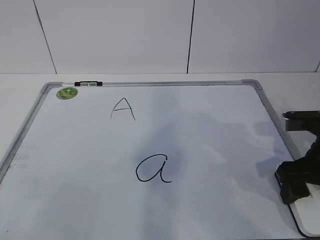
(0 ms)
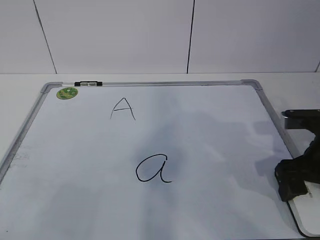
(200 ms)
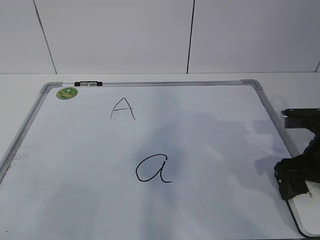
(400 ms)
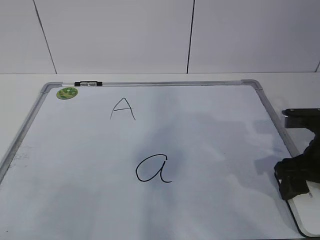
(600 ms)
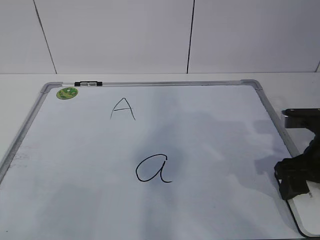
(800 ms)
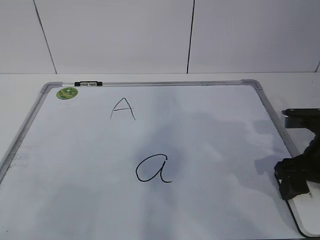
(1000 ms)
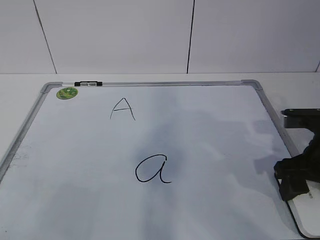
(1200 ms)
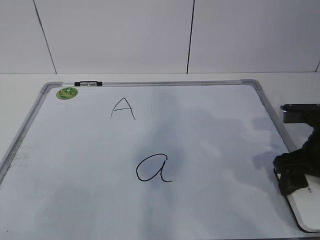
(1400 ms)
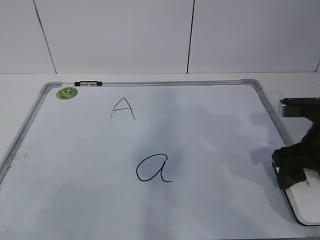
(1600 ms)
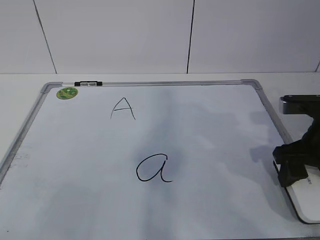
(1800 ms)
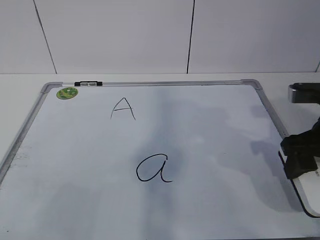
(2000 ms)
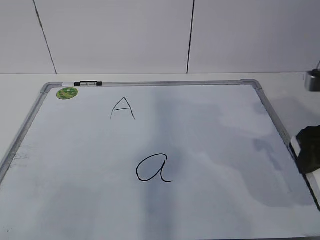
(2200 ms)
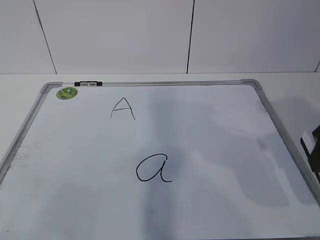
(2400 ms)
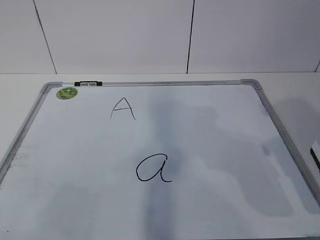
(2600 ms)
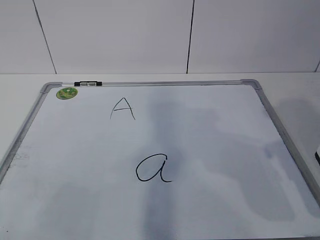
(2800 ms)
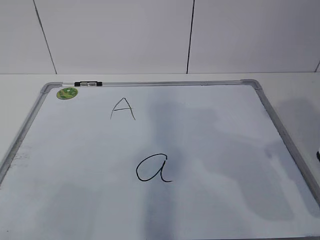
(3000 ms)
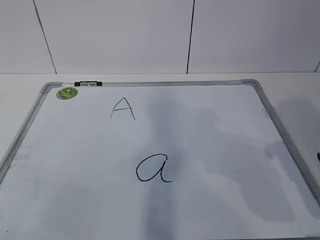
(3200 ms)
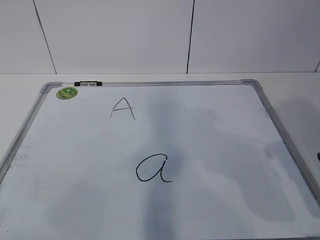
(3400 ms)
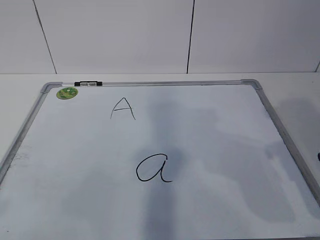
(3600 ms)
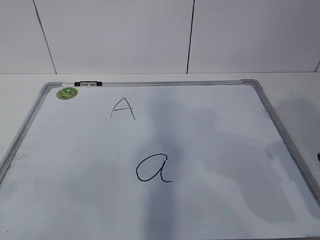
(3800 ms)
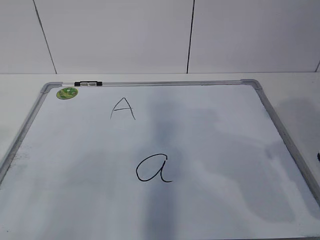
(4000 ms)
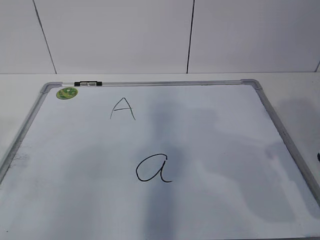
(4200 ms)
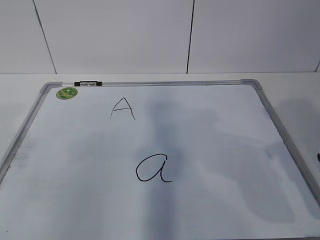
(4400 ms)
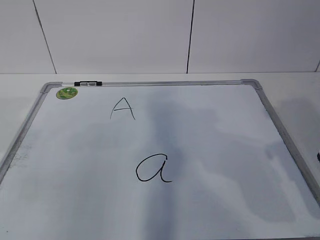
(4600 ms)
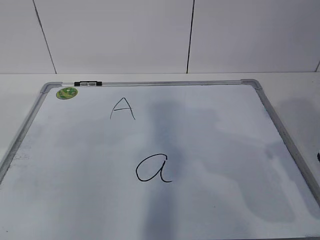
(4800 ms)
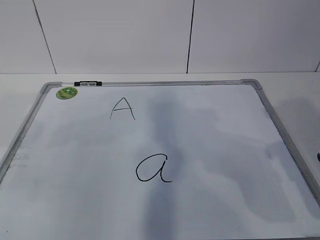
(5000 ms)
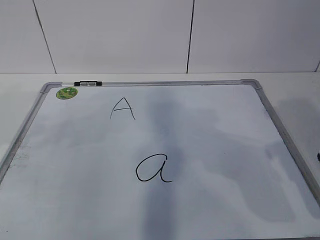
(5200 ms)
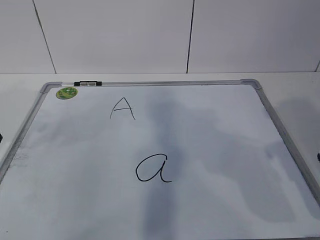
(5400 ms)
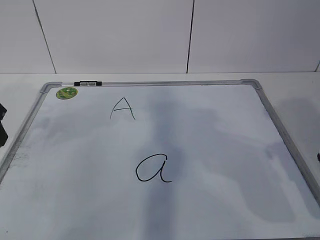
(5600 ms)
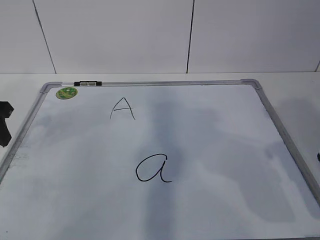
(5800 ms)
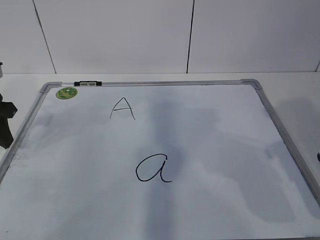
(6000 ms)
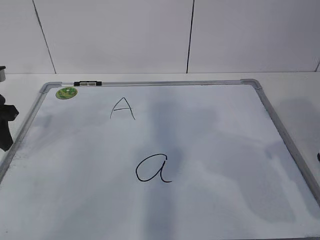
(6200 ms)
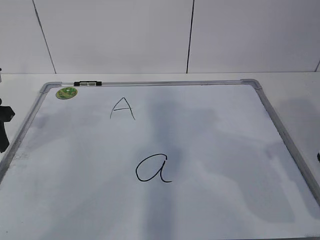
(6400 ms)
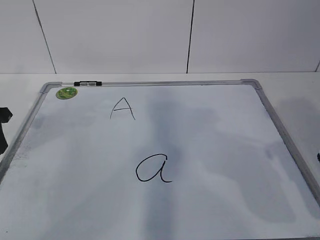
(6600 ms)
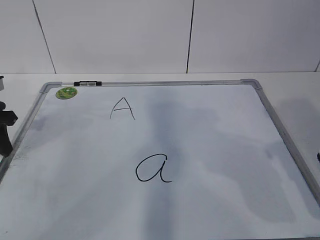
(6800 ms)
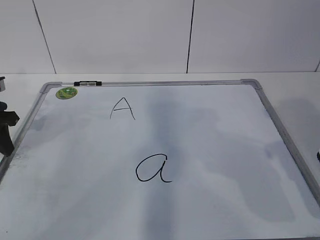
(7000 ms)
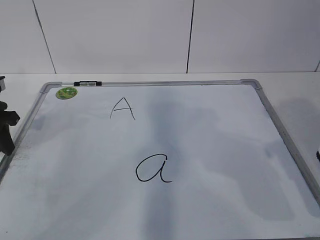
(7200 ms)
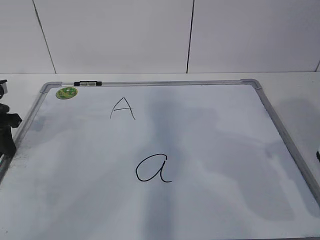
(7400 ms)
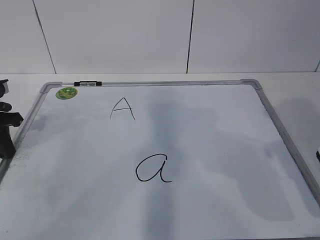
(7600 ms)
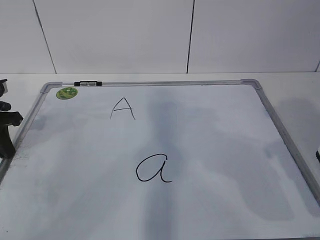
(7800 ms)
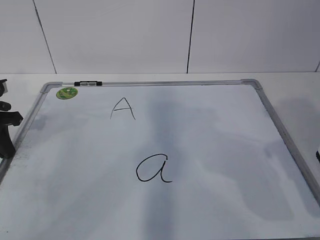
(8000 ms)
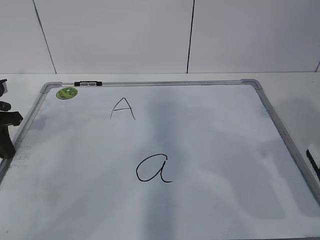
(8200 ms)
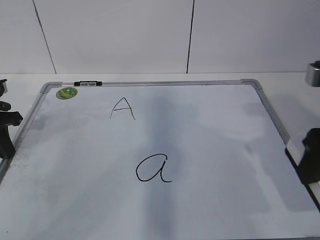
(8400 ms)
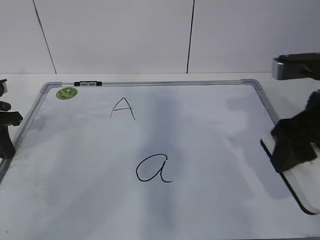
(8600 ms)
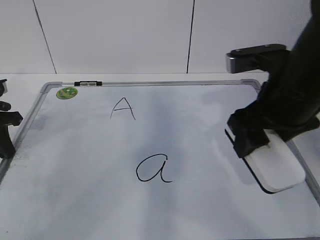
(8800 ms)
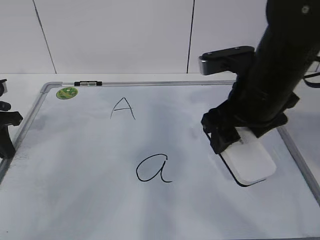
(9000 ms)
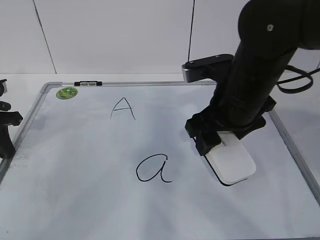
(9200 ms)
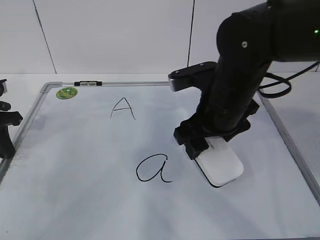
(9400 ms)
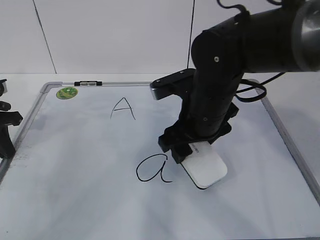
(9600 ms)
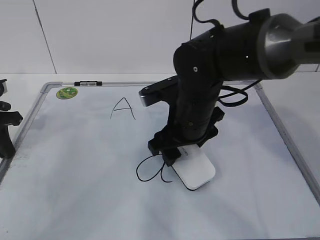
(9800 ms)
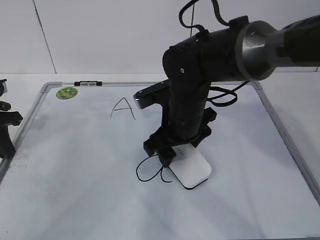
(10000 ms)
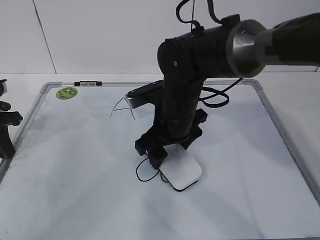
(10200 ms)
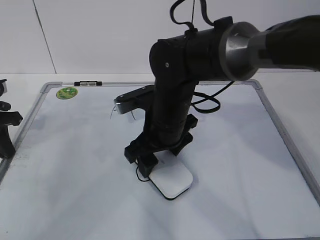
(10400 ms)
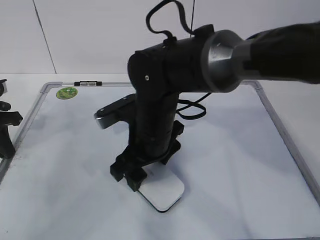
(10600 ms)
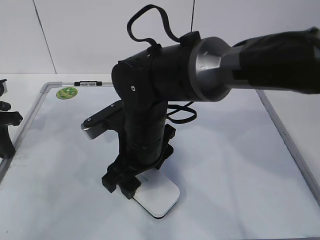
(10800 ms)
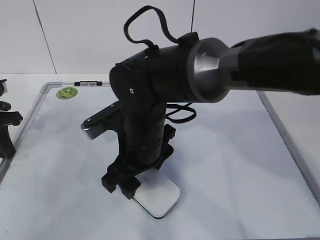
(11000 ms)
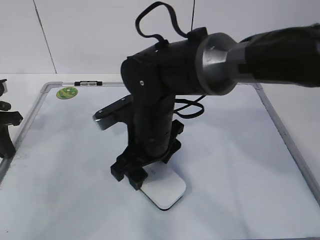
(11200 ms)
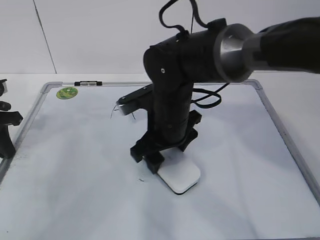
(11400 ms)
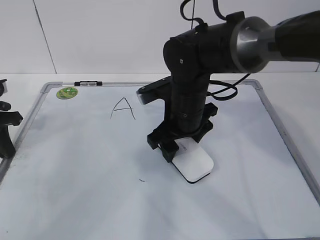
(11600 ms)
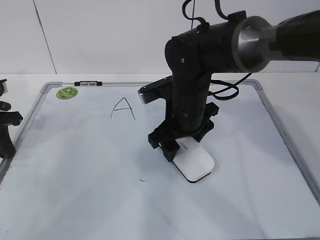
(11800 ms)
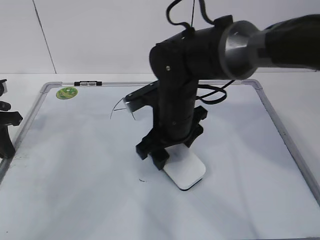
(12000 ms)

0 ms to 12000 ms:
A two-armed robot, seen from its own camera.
Task of the whole recording: pick up the eraser on the blackboard and erase the letter "a".
Step, 0 ms to 5000 ms: Hold the drawing board steady with your left hand.
Step, 5200 ms to 9800 ms: Erase the letter a with your right hand.
0 ms to 1600 ms: The right gripper closes up.
1600 ms to 3000 ms: The right gripper is displaced upward and backward by roughly 10 cm.
4400 ms to 6000 ms: The left gripper heads forward and downward, covering about 20 cm, and closes up.
6000 ms to 7600 ms: The left gripper changes place by about 5 cm, and closes its fingers.
7600 ms to 9000 ms: The right gripper moves to the left and forward, approximately 15 cm.
9000 ms to 10400 ms: The right gripper heads to the left and downward, covering roughly 15 cm.
10400 ms to 12000 ms: The grippers make only small movements.

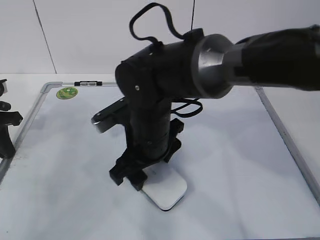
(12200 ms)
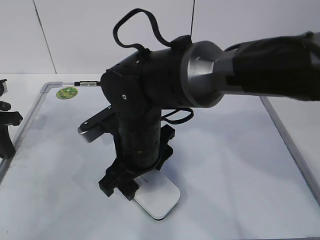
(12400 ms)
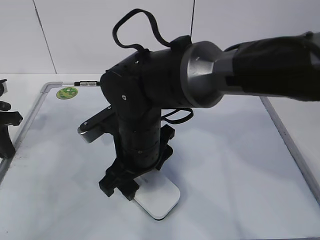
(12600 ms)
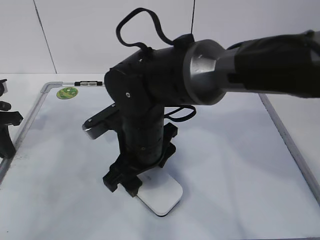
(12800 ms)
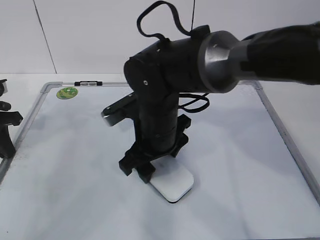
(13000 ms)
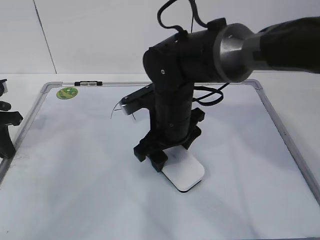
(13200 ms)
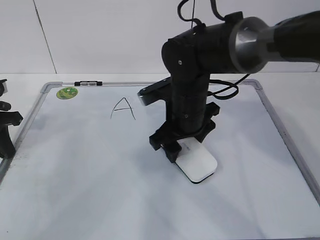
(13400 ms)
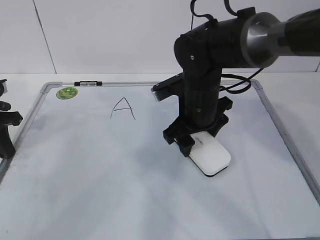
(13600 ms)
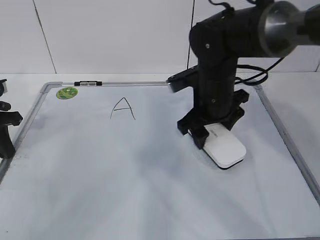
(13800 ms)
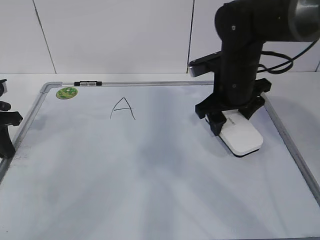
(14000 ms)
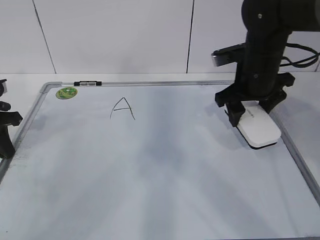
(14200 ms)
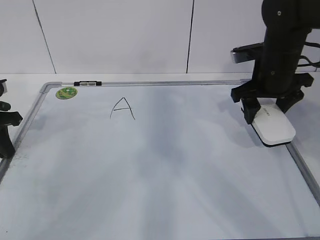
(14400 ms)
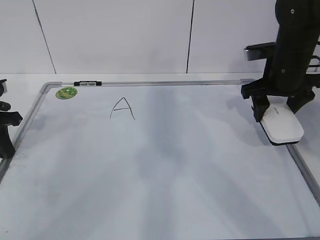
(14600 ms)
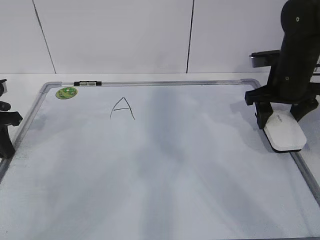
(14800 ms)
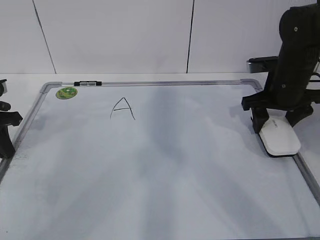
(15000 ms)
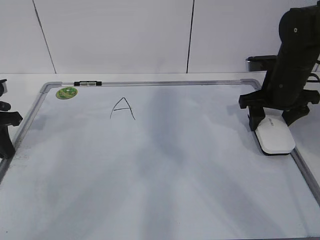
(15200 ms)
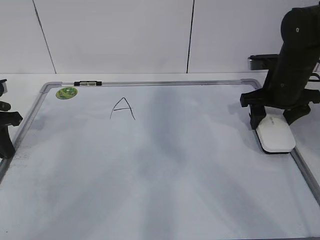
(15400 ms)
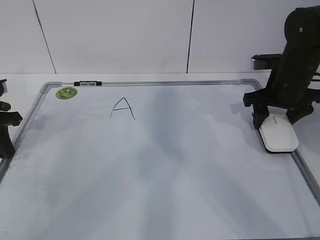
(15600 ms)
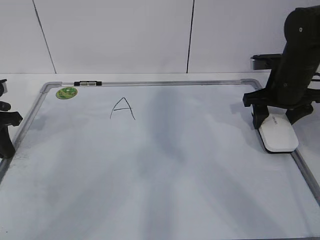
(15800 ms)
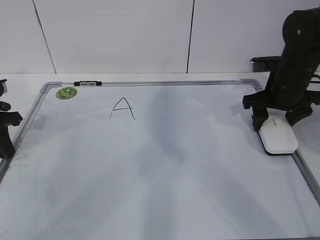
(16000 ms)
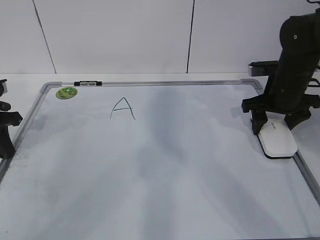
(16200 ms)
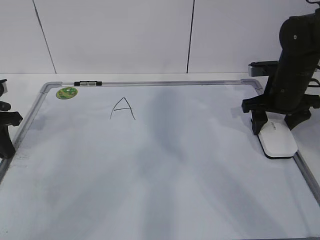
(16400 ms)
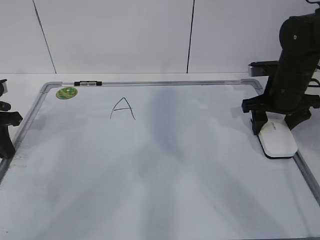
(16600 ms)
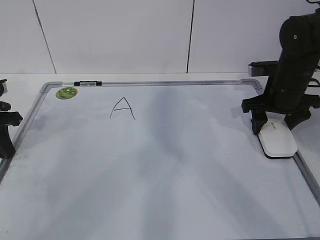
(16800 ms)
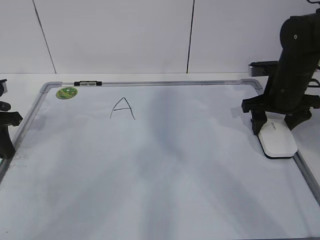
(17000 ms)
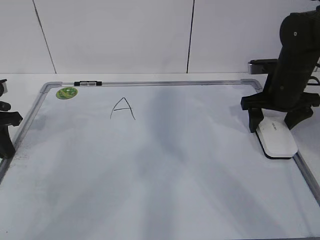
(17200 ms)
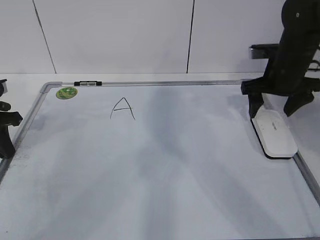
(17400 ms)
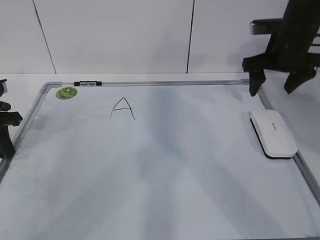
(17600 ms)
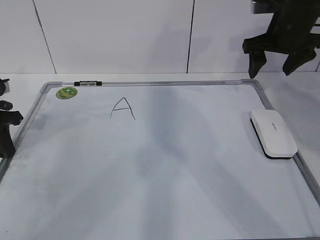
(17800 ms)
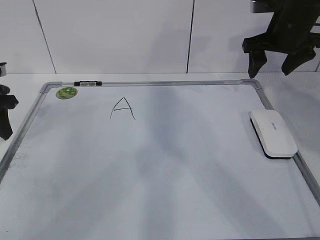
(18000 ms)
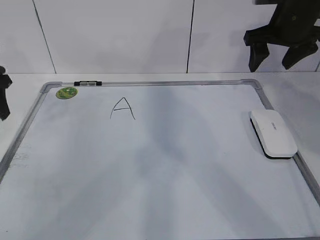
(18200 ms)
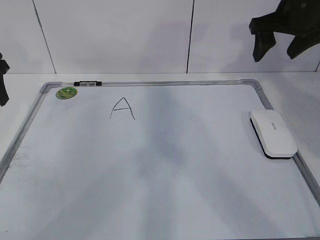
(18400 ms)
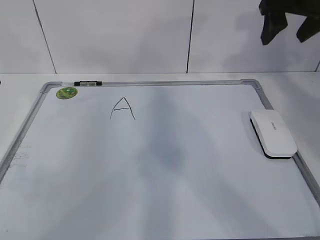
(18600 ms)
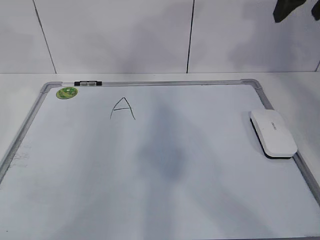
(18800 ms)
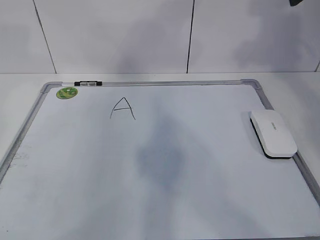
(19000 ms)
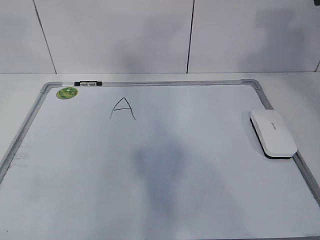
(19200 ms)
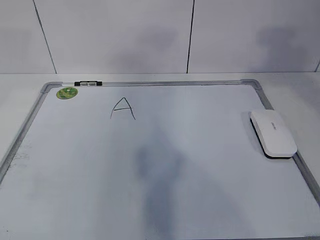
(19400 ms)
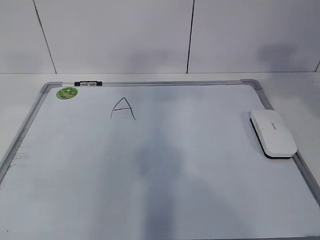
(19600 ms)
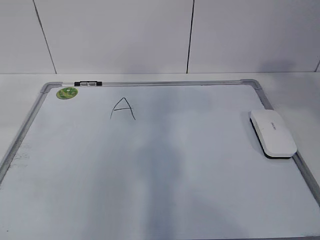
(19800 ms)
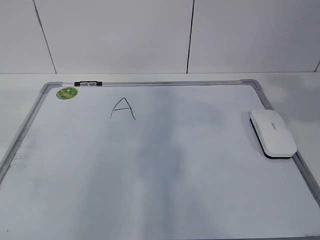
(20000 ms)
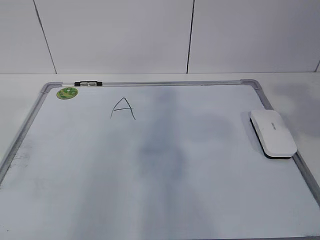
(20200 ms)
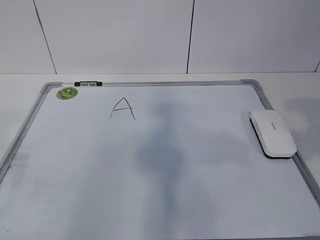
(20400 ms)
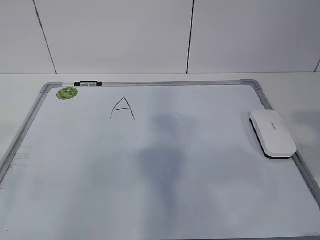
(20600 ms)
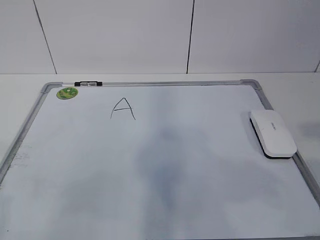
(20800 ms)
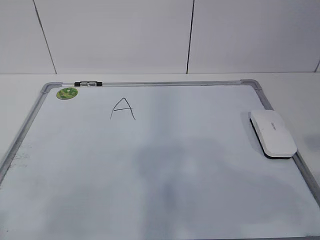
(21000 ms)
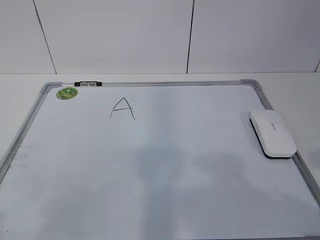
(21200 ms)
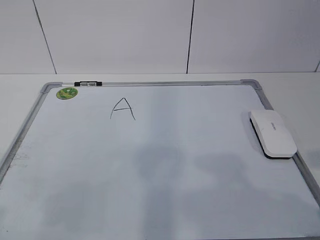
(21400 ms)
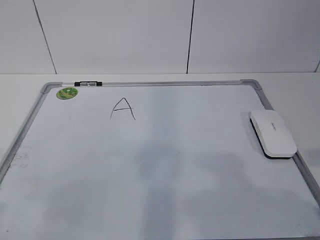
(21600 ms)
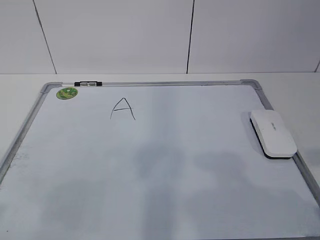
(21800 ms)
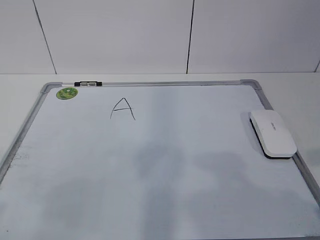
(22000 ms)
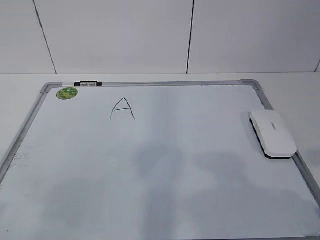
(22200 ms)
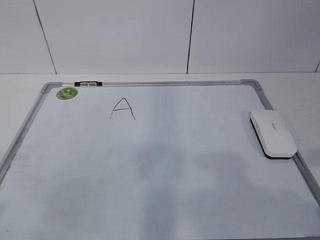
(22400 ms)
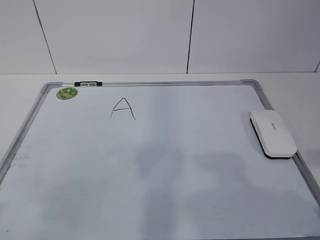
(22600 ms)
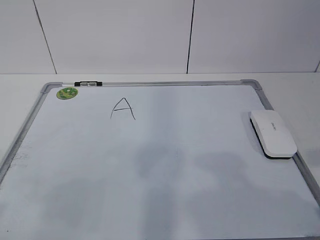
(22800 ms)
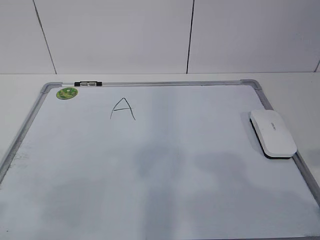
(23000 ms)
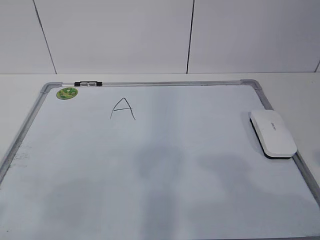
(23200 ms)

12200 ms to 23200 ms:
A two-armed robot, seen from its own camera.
Task of the whole recording: pick up the eraser on the blackboard and erase the letter "a".
12200 ms to 13800 ms: The right gripper travels to the right and forward by about 15 cm.
13800 ms to 15400 ms: The right gripper travels to the right by approximately 15 cm.
15400 ms to 17000 ms: The grippers move only a little.
17000 ms to 18400 ms: The left gripper is displaced upward by some 10 cm, and opens up; the right gripper shifts about 15 cm upward, and opens.
18400 ms to 20000 ms: The right gripper moves backward, roughly 25 cm. Meanwhile the left gripper moves backward and upward, roughly 30 cm.
20000 ms to 21600 ms: The right gripper heads downward and backward, covering approximately 20 cm.
